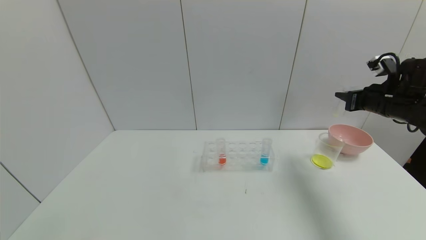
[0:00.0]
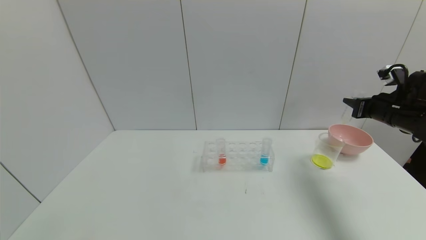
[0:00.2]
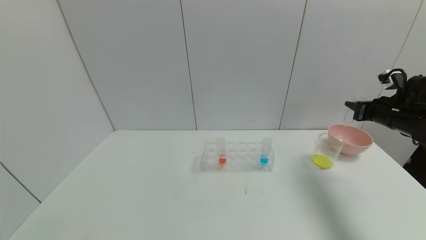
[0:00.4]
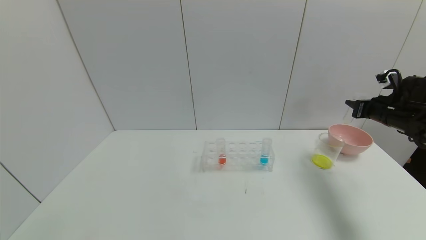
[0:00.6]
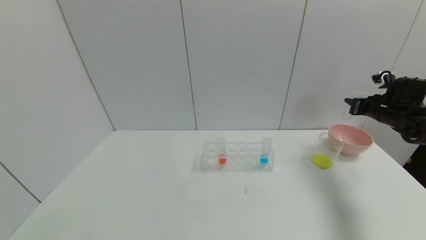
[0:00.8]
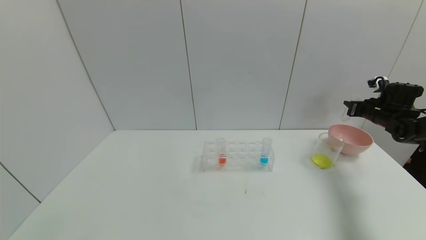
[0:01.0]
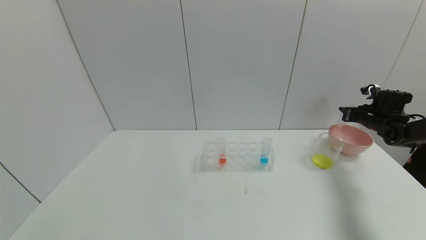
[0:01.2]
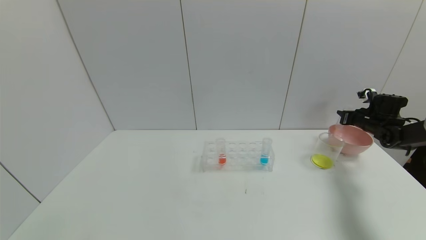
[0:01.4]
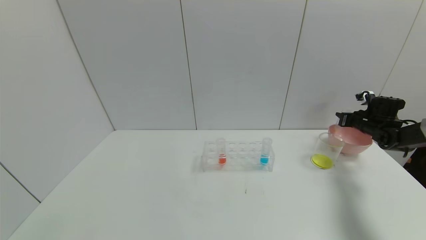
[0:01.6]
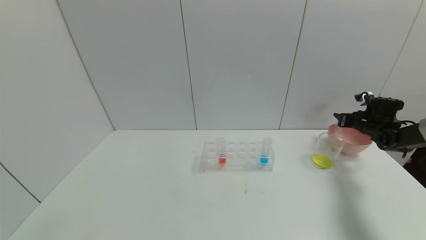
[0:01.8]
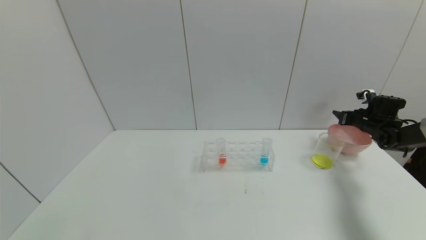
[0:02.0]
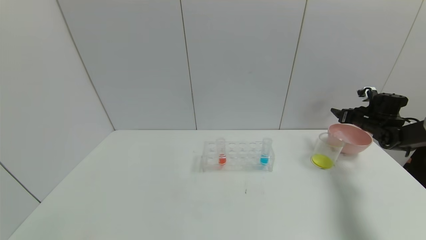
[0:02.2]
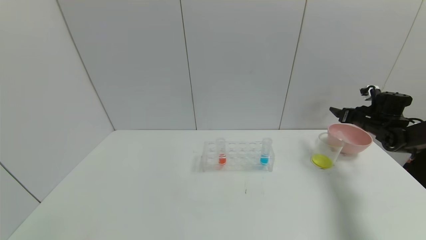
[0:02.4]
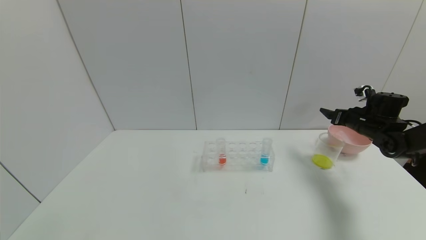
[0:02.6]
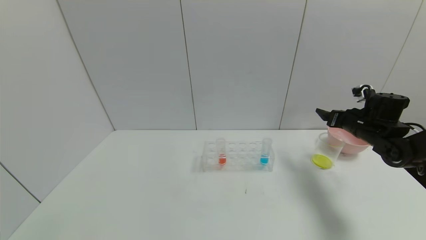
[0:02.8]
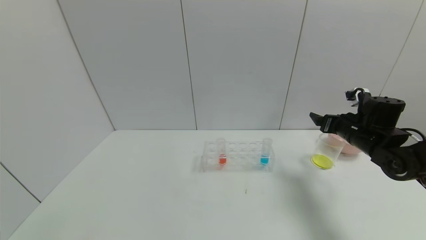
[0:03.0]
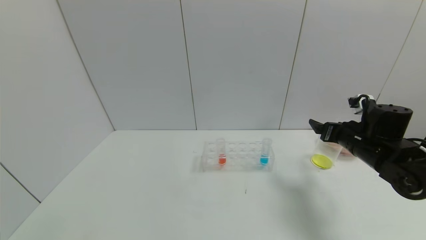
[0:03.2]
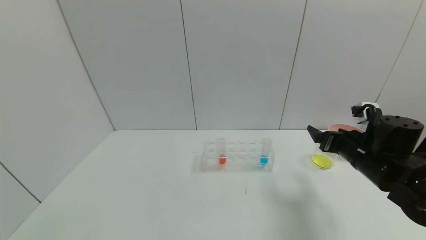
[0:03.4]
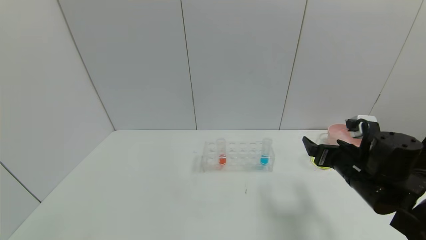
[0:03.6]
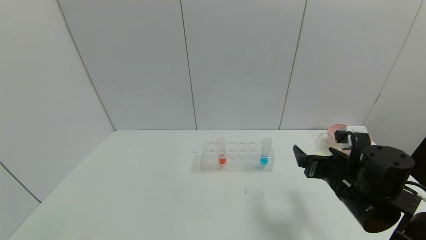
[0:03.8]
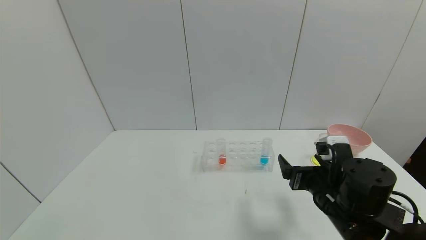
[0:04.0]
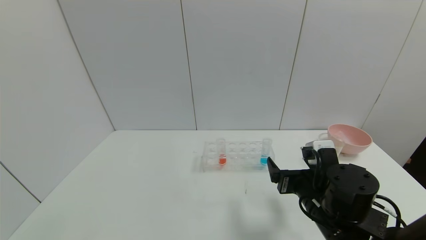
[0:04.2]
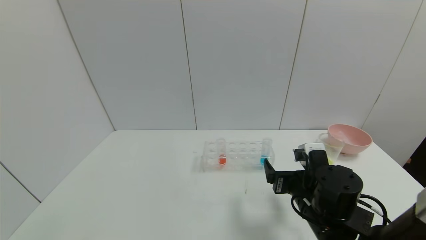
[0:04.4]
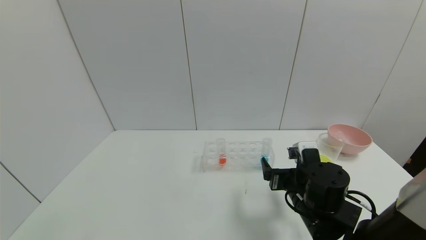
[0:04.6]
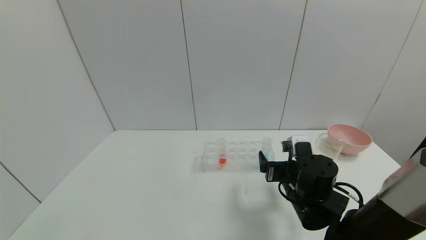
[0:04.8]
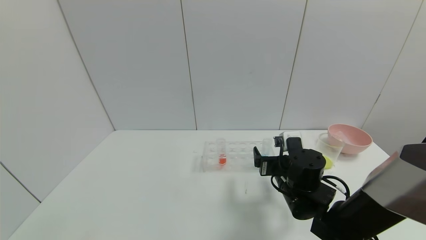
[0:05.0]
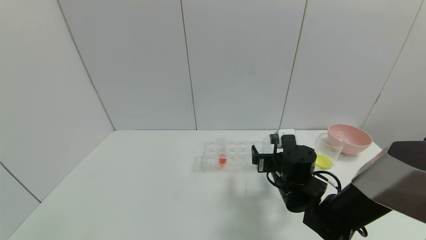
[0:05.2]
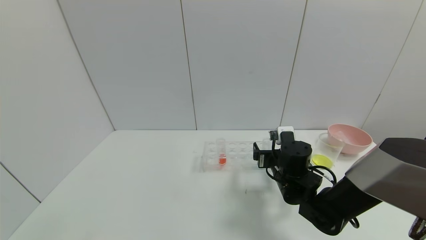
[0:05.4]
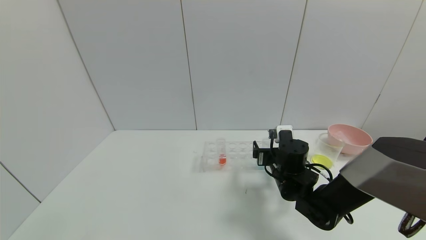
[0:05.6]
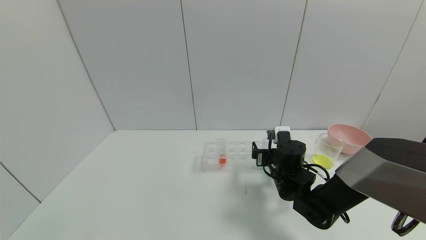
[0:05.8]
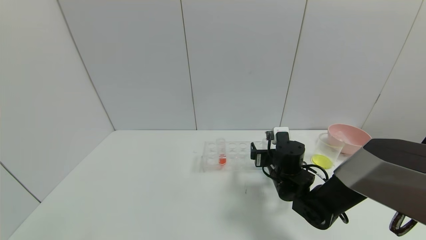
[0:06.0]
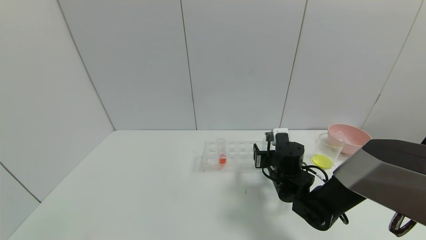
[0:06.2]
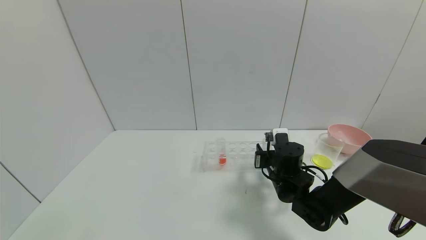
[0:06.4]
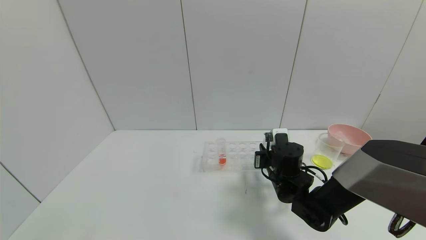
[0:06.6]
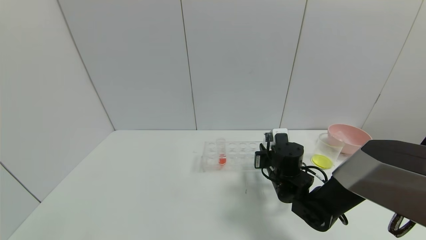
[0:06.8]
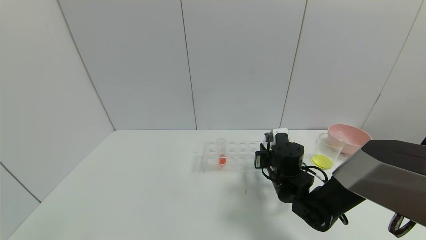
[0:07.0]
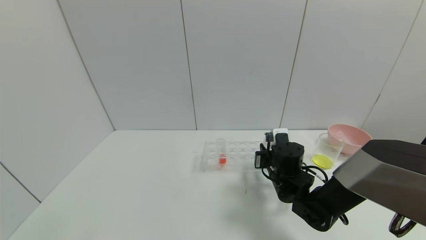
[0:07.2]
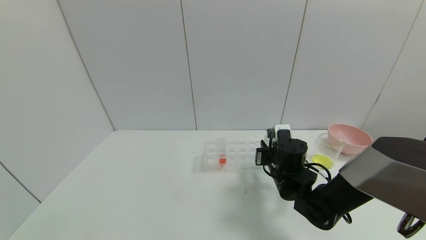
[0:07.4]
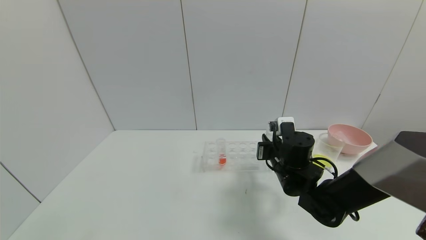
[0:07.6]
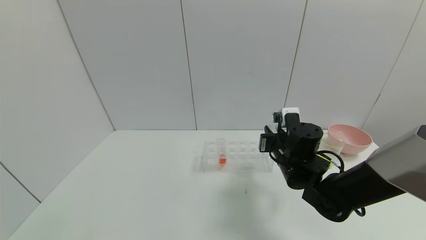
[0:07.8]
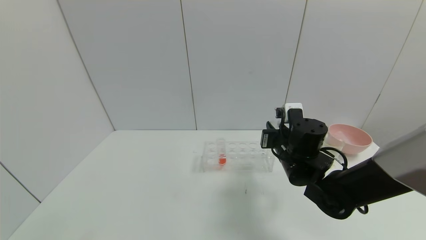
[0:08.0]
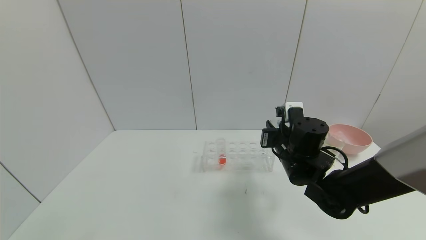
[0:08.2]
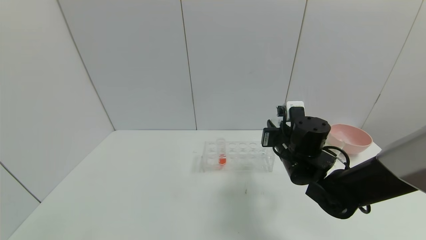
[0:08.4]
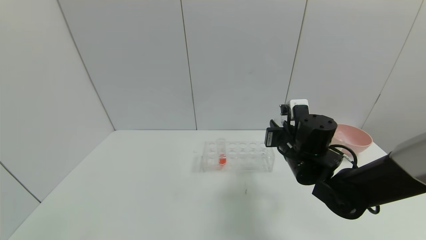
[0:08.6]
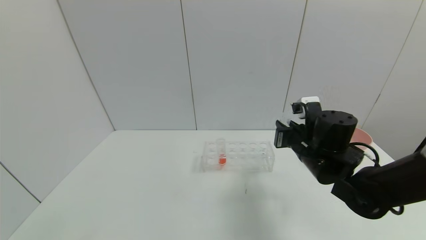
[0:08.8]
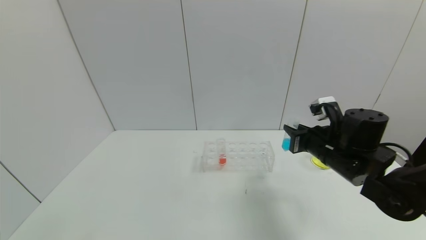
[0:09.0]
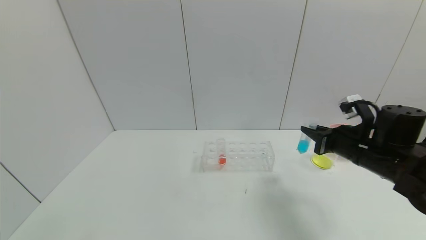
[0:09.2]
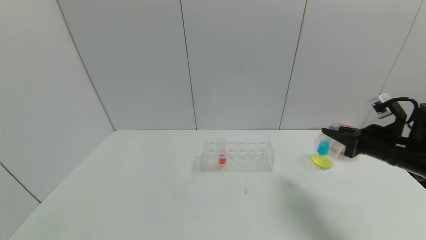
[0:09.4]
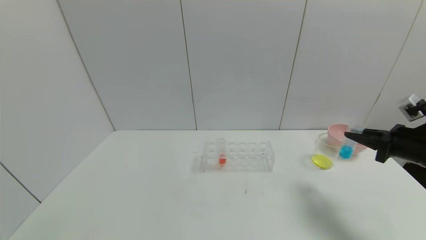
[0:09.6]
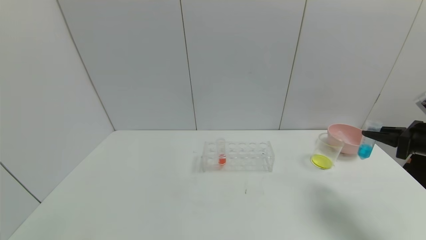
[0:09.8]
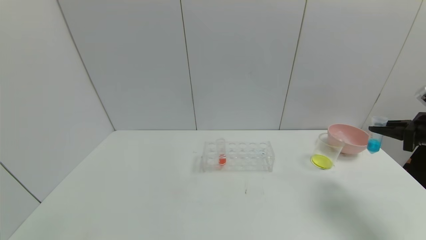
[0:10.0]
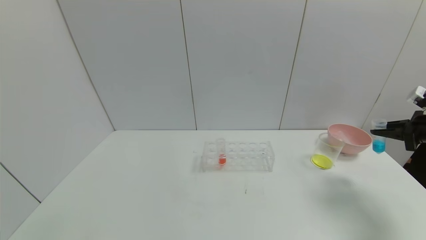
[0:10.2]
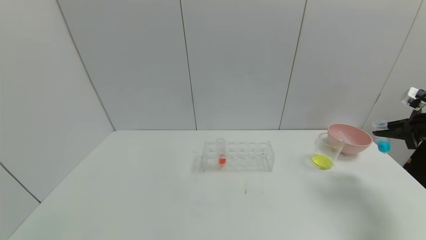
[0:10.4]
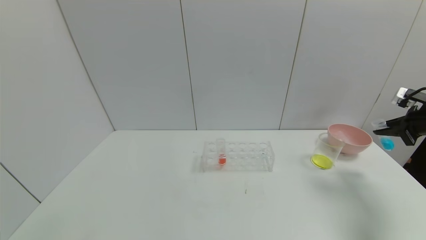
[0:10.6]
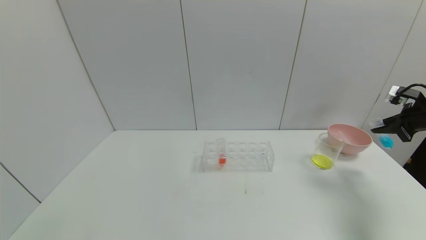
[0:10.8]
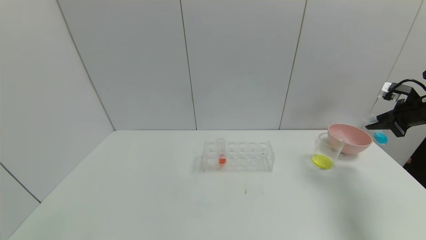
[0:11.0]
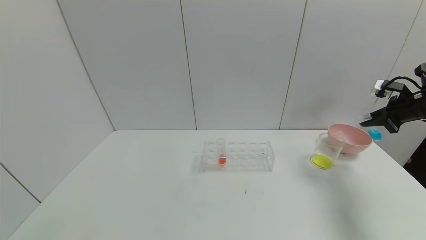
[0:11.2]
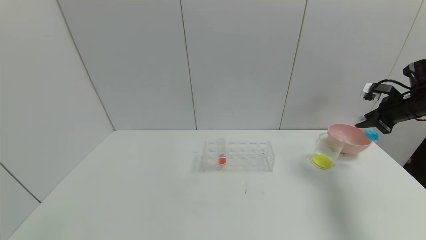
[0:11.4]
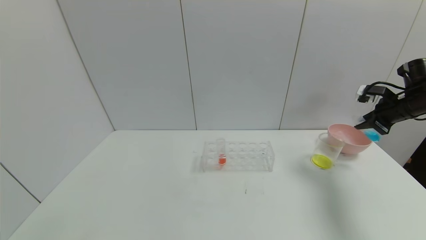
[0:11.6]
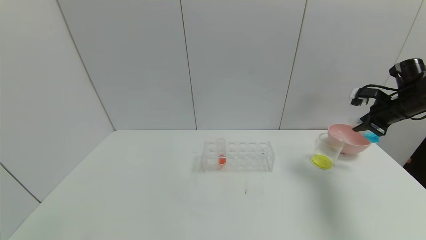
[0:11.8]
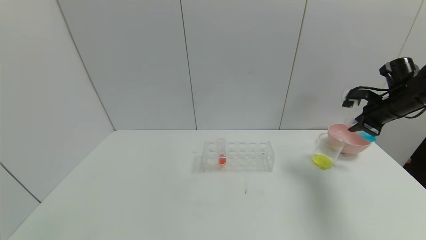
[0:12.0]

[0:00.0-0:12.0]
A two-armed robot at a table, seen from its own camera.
Task of the whole recording: pick up the test tube with yellow pigment and the test tube with blue pigment by grippers and pour them into the beaker.
Step, 0:00.0 to 0:02.0: Place the test tube into the bowl with the right gripper.
Step, 0:02.2 to 0:06.6: Grasp the blue reagent with the right gripper.
0:00.0 to 0:01.6: The right gripper is displaced downward, forward and to the right by roughly 20 cm.
0:01.6 to 0:03.0: The right gripper travels to the left and backward by approximately 20 cm, and opens.
0:03.0 to 0:04.4: The right gripper shifts roughly 20 cm to the left and backward.
0:04.4 to 0:06.0: The right gripper is displaced forward by about 10 cm.
0:06.0 to 0:07.6: The right gripper closes.
0:07.6 to 0:09.0: The right gripper shifts some 10 cm to the right and upward.
0:09.0 to 0:10.4: The right gripper is displaced to the right by roughly 25 cm.
0:10.4 to 0:12.0: The right gripper moves to the left and forward, approximately 10 cm.

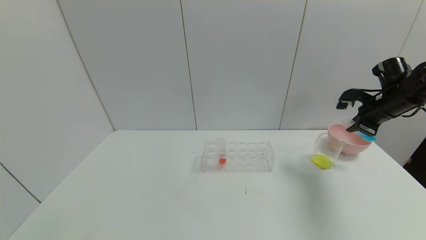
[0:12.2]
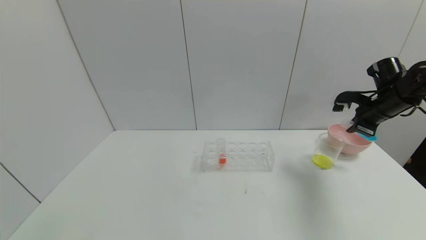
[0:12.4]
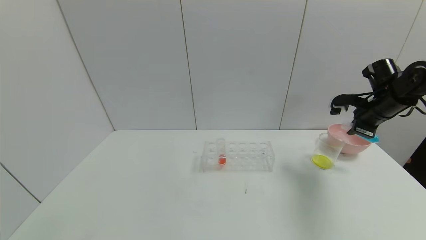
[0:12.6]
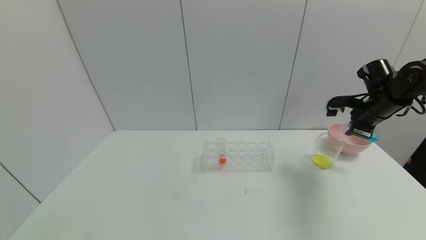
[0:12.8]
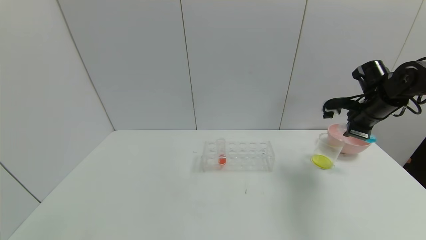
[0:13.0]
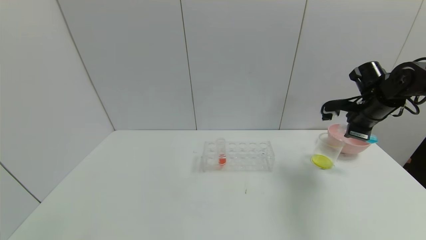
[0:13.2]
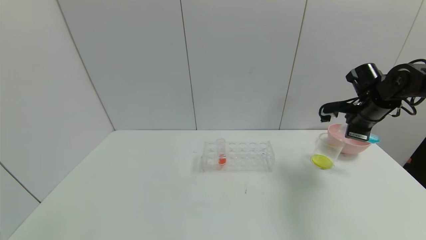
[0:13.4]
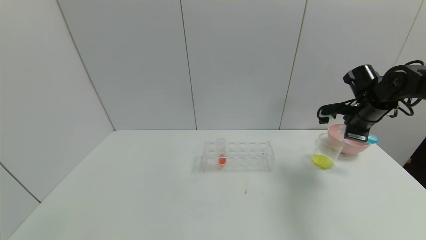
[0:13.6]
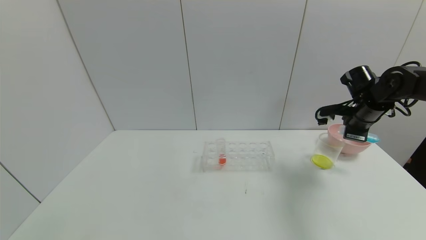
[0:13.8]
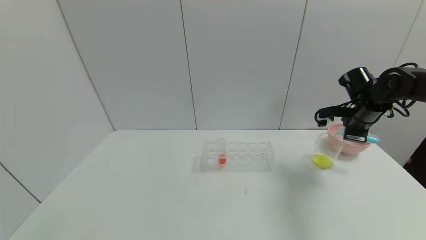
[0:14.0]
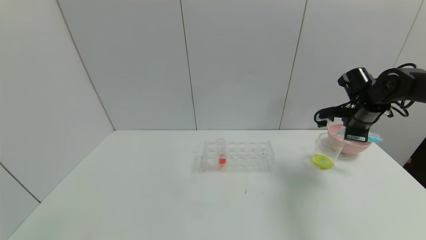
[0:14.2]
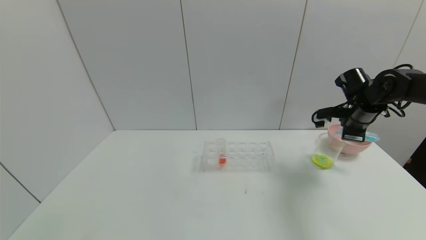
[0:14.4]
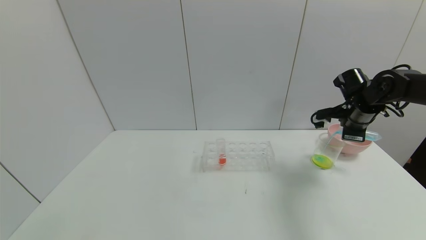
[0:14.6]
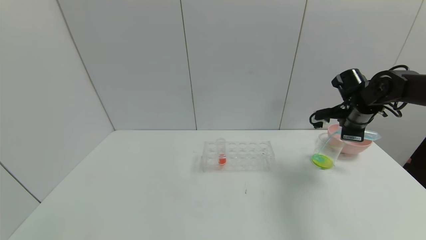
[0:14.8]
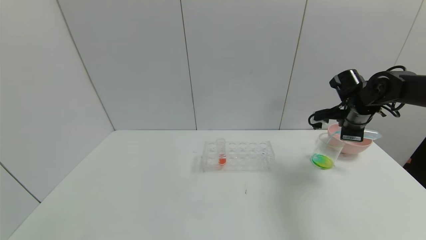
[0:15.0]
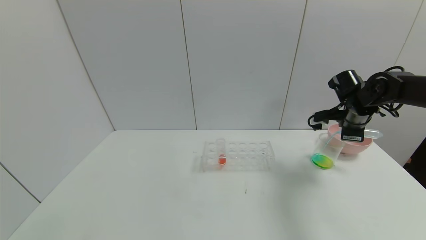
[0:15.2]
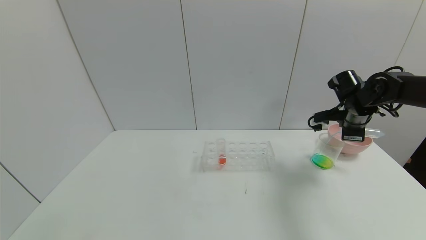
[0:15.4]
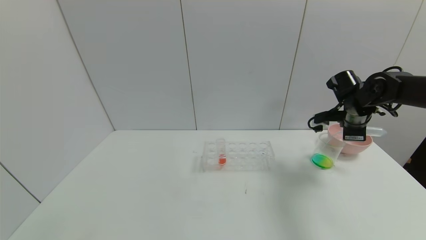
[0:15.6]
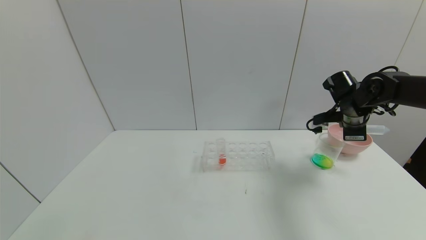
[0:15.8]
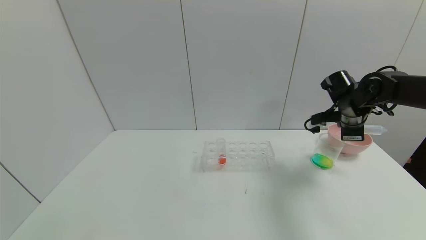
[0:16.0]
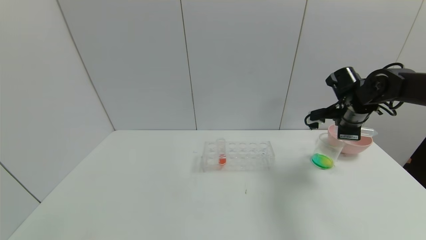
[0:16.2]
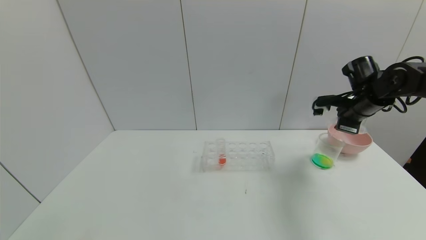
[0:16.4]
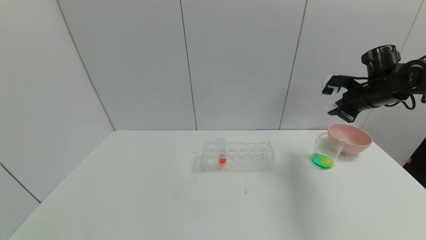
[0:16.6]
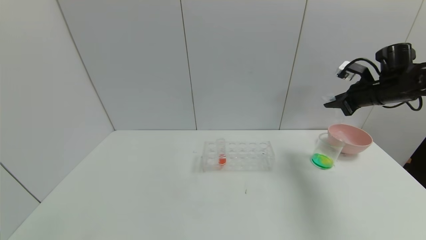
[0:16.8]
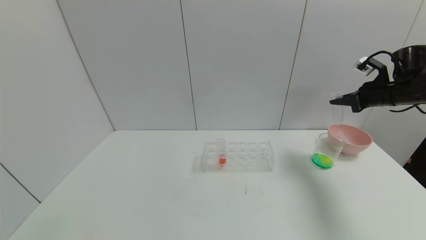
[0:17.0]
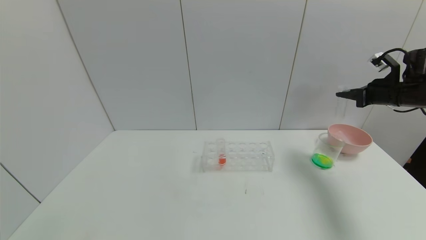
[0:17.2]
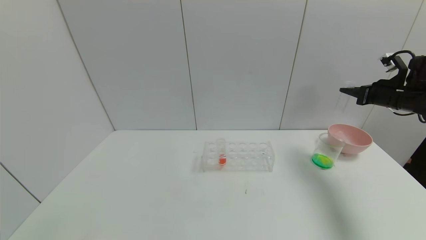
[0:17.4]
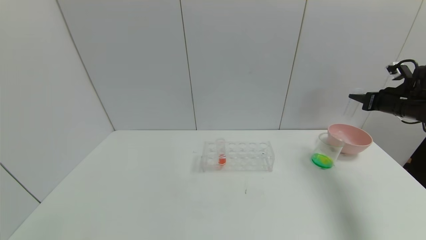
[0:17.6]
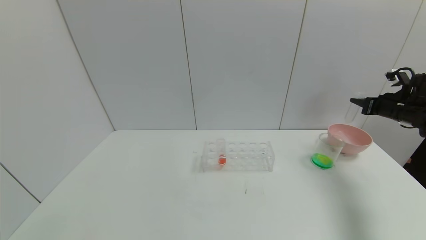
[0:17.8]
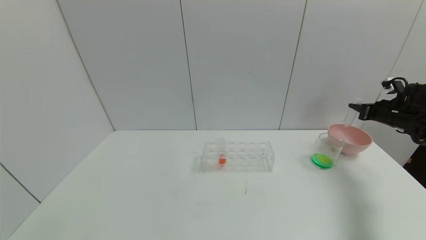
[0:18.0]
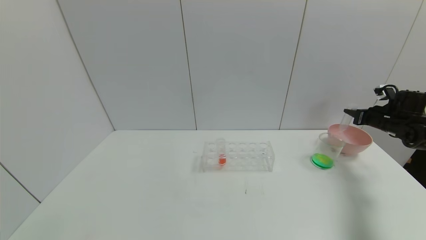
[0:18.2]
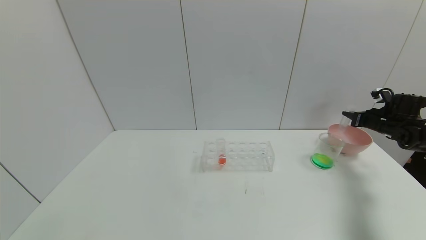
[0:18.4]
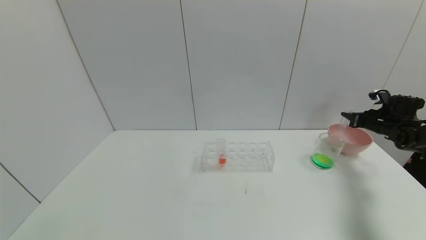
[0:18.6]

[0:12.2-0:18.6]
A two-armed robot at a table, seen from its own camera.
Task of the whole recording: pick up the test tube with yellow pigment and the test tube with blue pigment by grippers and pour them into the beaker.
Step, 0:12.2 to 0:15.8: Pour the blue reagent into the graduated cylinder with the right gripper.
0:12.2 to 0:13.8: The right gripper moves to the left, about 5 cm.
0:13.8 to 0:15.4: The grippers make only small movements.
0:15.4 to 0:17.0: The right gripper moves to the right and upward, some 10 cm.
0:17.0 to 0:18.6: The right gripper travels downward and to the right by some 15 cm.
